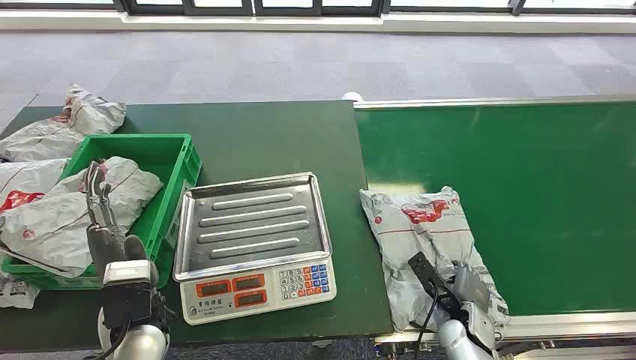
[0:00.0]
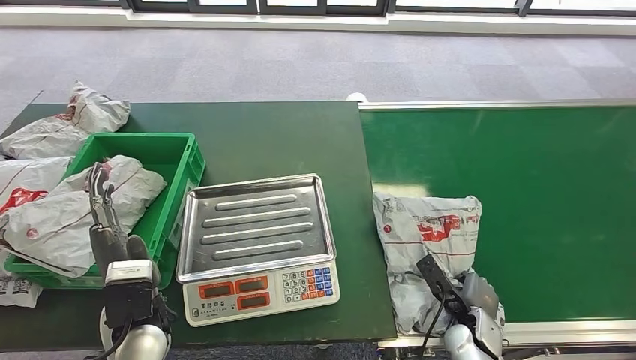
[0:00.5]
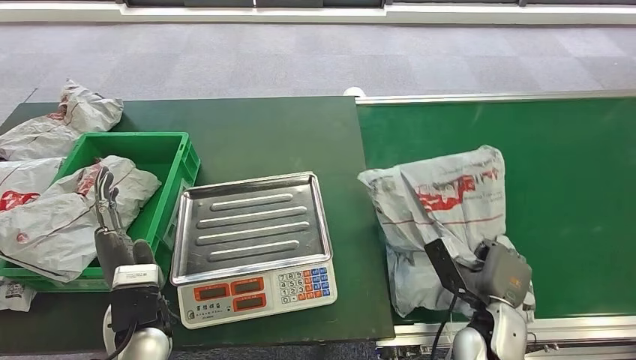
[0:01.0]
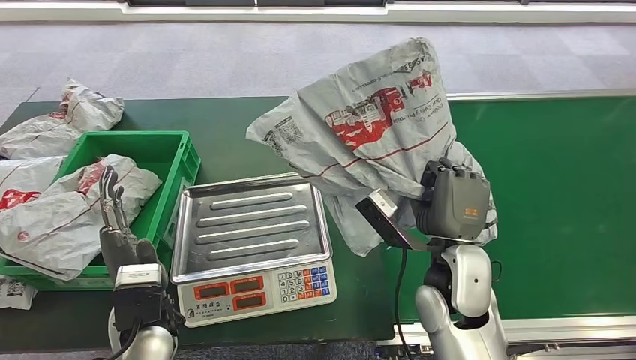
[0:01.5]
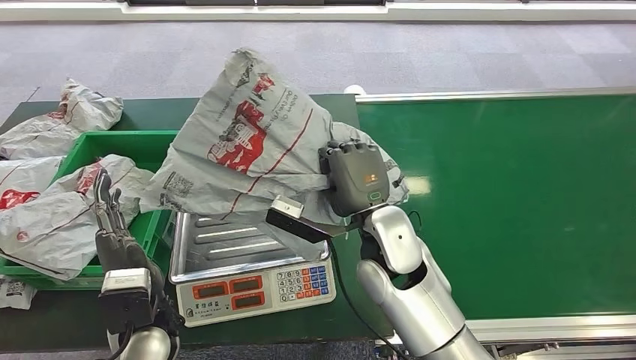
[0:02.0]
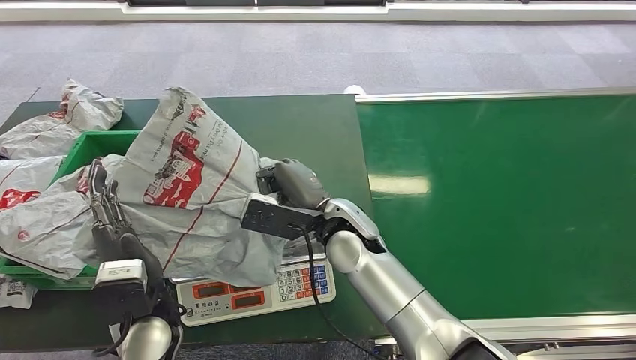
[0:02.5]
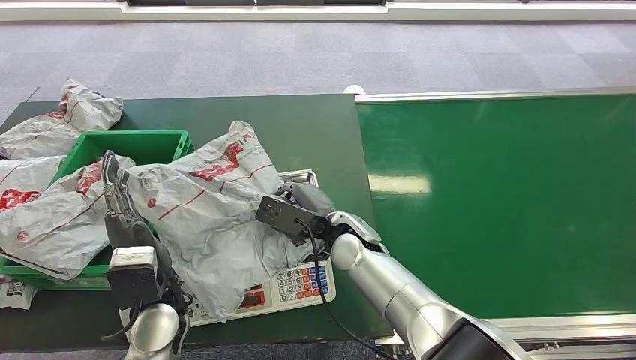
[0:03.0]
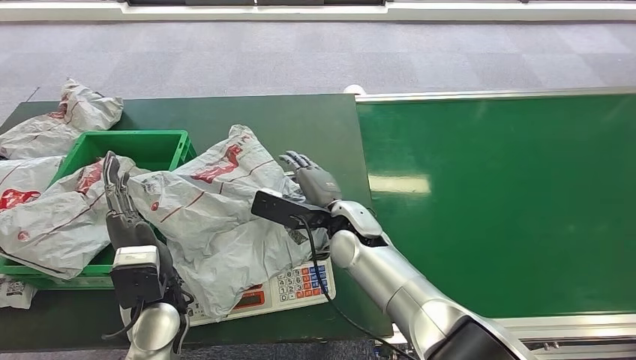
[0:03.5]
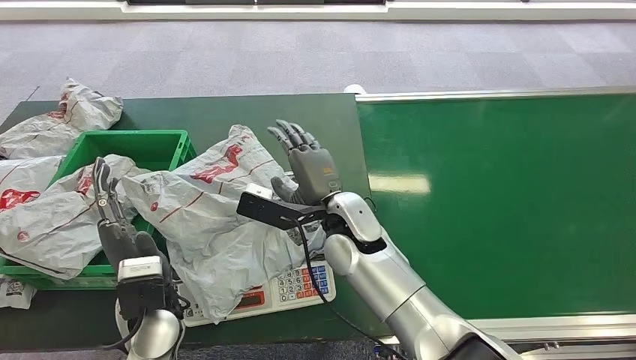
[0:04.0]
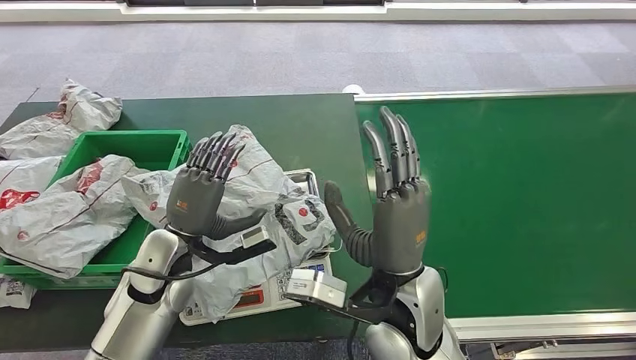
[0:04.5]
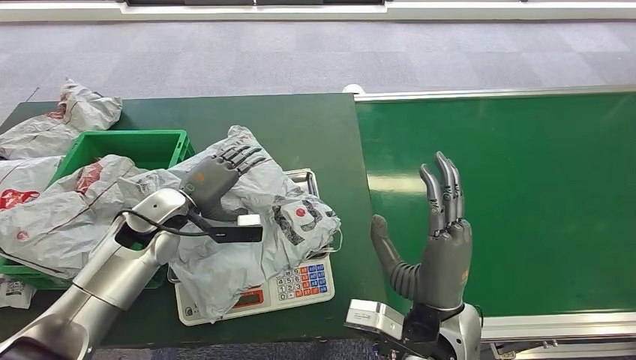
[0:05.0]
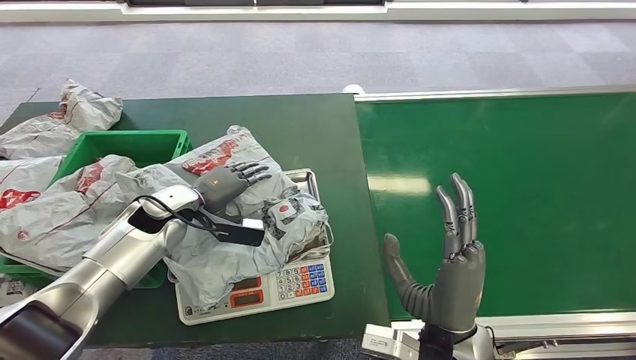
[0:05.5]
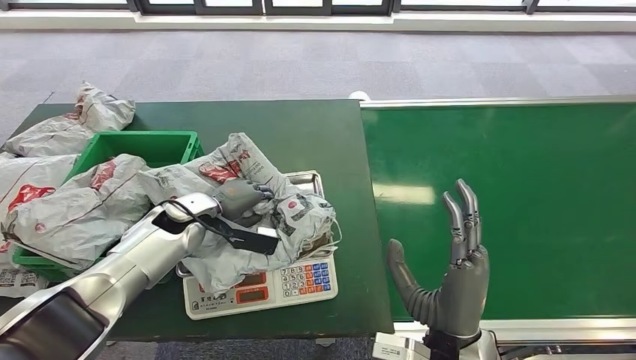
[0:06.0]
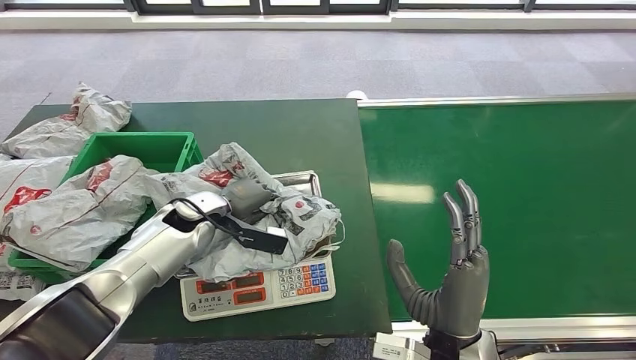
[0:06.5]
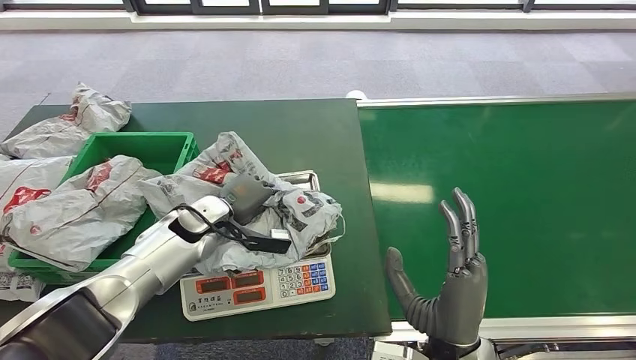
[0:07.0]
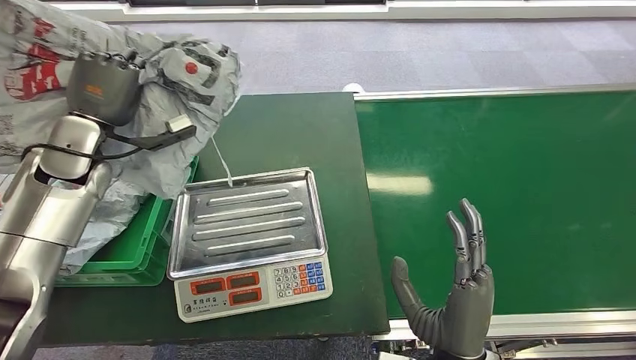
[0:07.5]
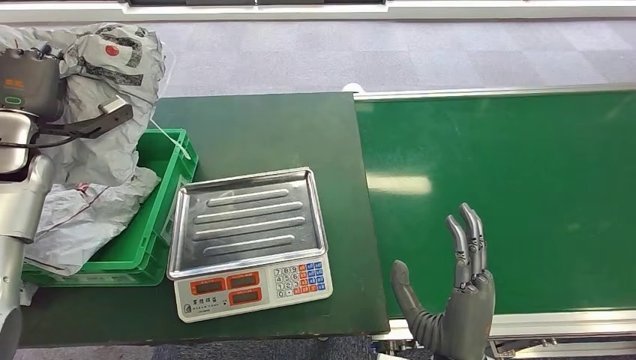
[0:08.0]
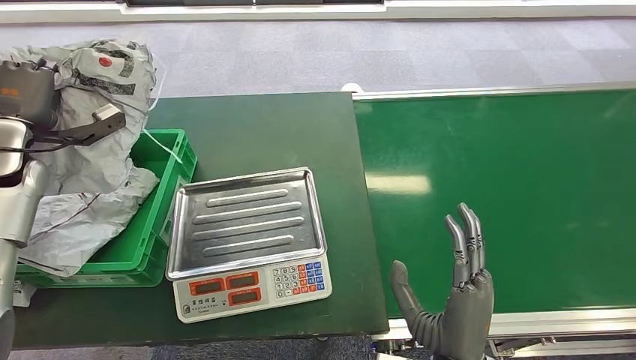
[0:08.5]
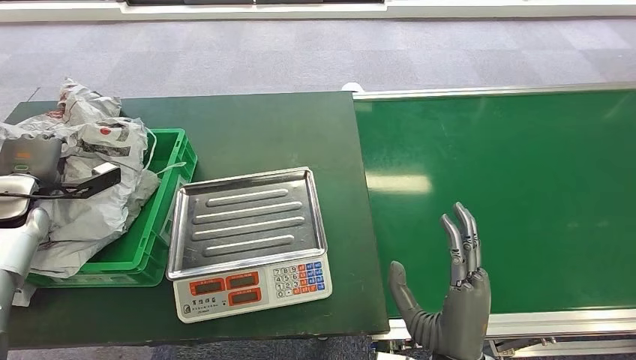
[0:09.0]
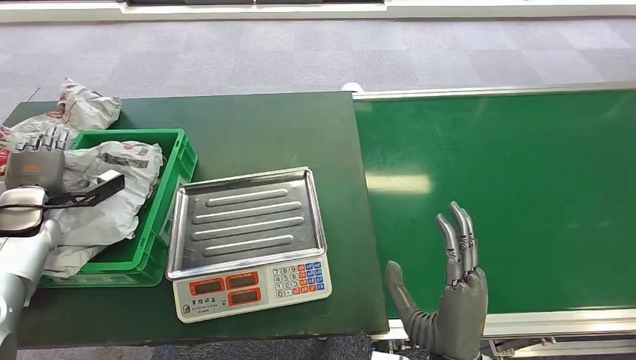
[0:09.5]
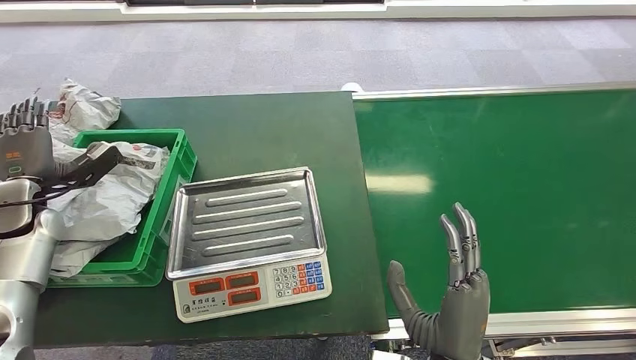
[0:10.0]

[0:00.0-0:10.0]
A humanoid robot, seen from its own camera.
Step, 0:00.0 to 0:01.0: Pick up the package from the conveyor belt.
Step, 0:01.5 to 0:04.0: Place the package onto the inbound machine.
Step, 0:04.5 to 0:07.5: Pick up the package from the inbound machine.
Step, 0:08.0 to 0:10.0: Place the package into the parcel locker.
